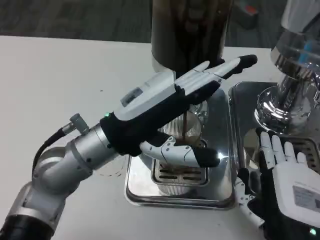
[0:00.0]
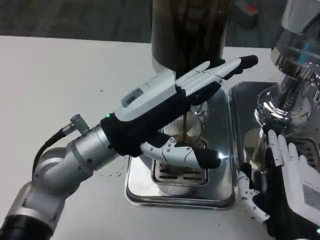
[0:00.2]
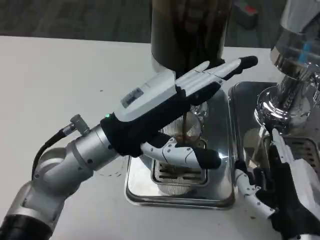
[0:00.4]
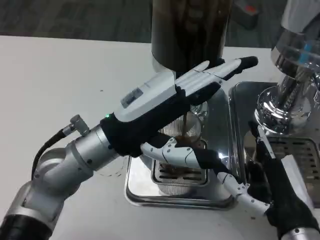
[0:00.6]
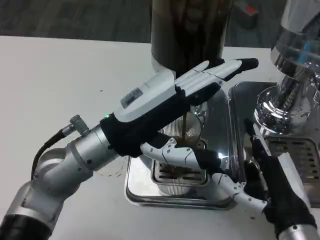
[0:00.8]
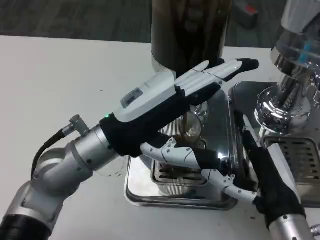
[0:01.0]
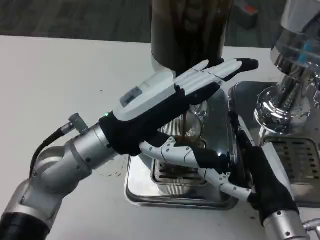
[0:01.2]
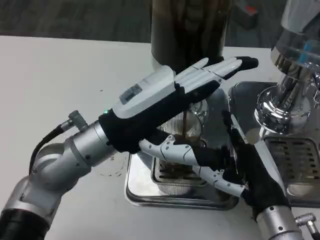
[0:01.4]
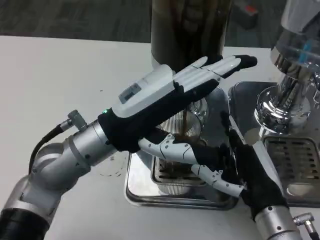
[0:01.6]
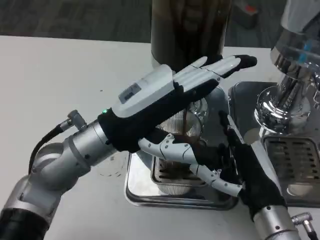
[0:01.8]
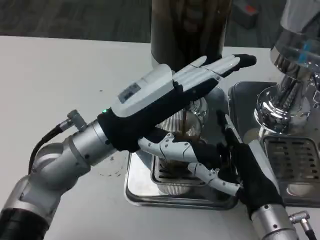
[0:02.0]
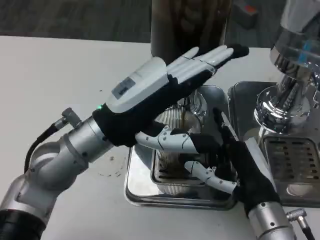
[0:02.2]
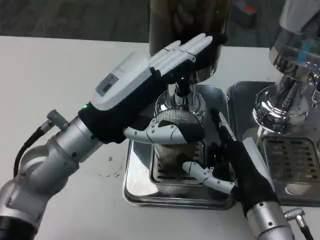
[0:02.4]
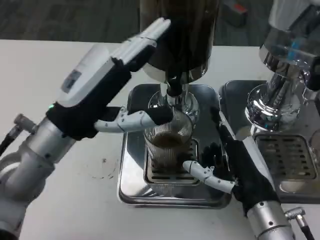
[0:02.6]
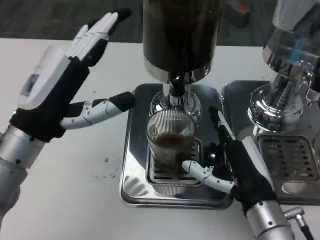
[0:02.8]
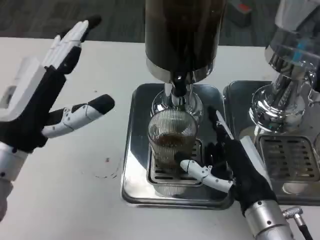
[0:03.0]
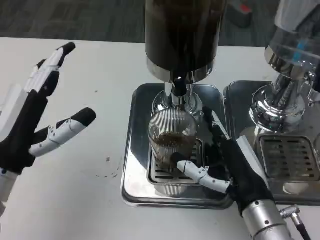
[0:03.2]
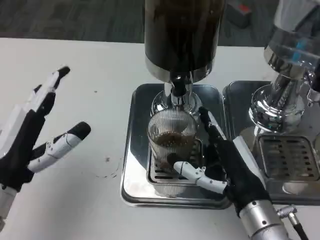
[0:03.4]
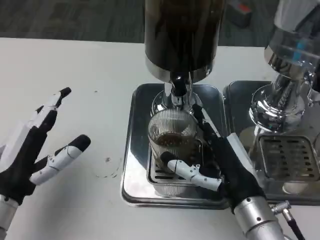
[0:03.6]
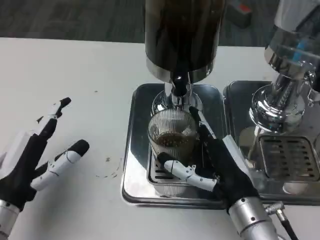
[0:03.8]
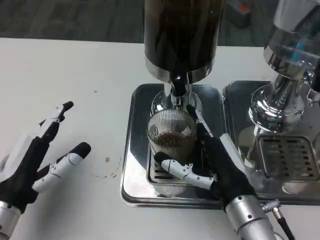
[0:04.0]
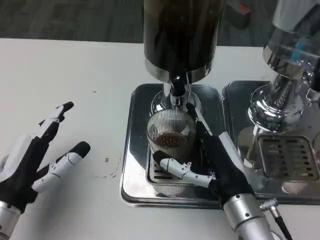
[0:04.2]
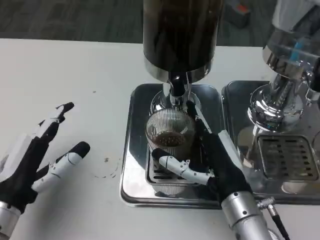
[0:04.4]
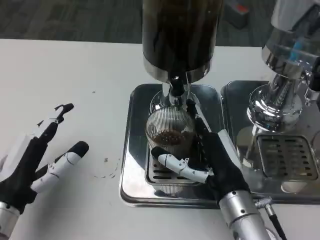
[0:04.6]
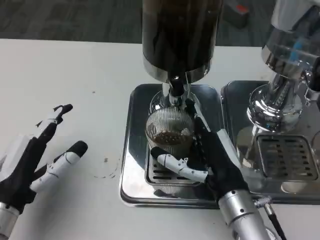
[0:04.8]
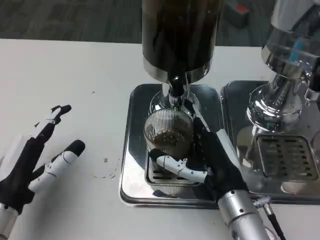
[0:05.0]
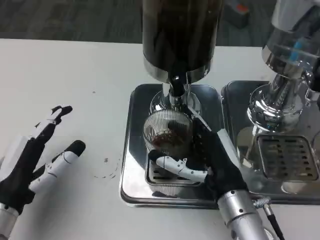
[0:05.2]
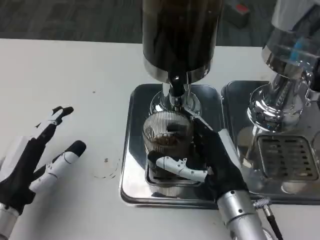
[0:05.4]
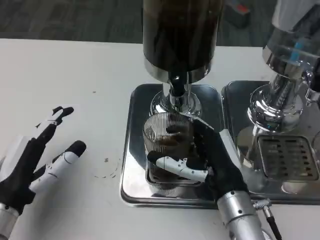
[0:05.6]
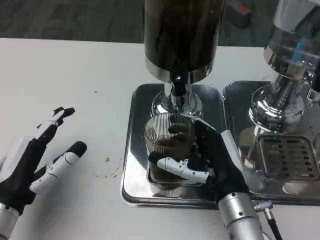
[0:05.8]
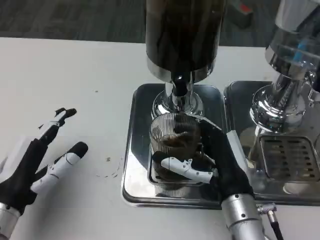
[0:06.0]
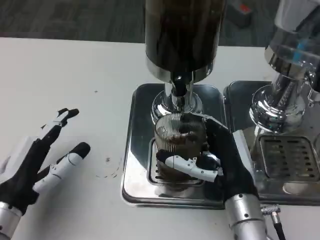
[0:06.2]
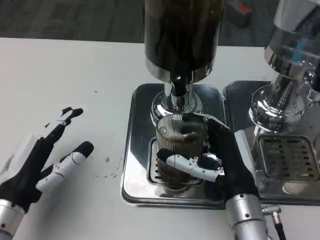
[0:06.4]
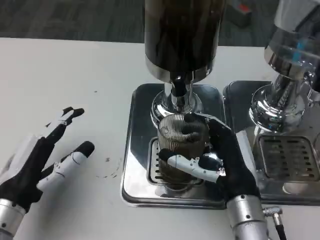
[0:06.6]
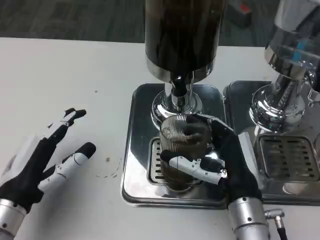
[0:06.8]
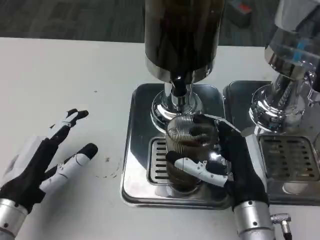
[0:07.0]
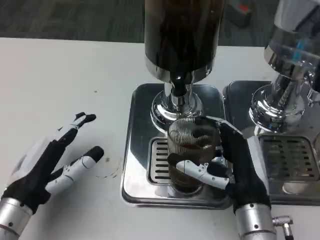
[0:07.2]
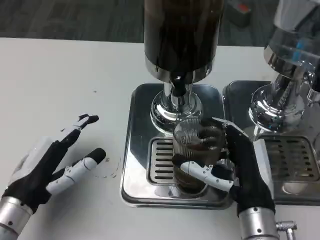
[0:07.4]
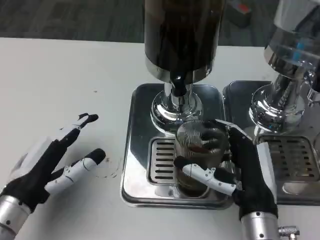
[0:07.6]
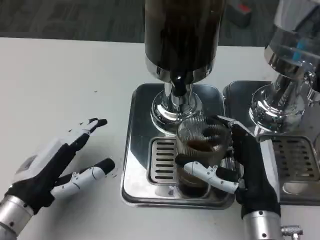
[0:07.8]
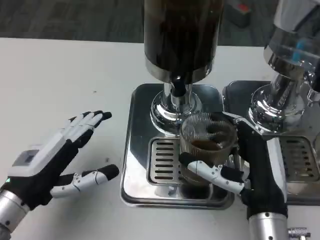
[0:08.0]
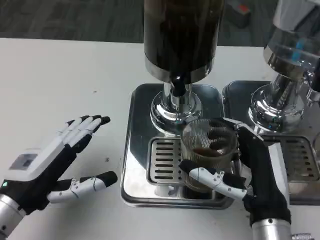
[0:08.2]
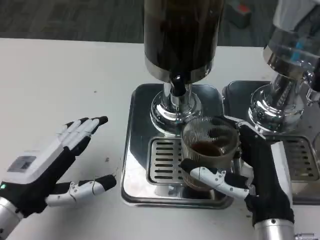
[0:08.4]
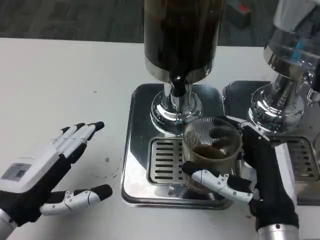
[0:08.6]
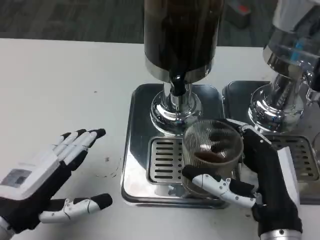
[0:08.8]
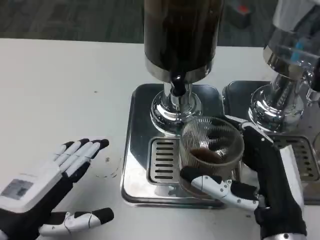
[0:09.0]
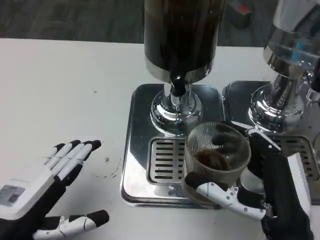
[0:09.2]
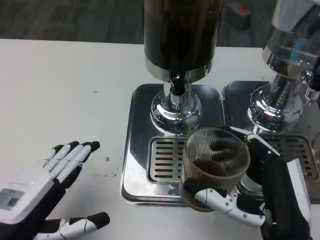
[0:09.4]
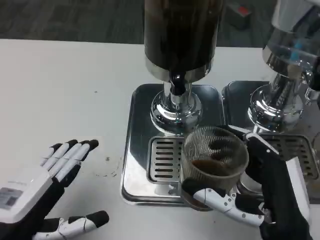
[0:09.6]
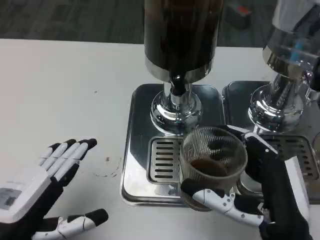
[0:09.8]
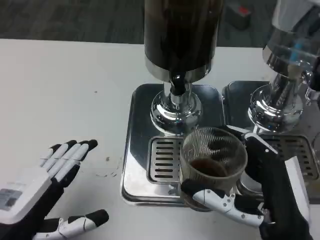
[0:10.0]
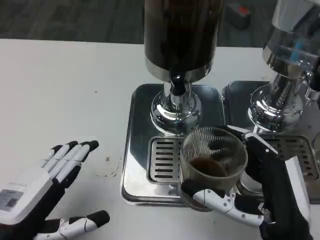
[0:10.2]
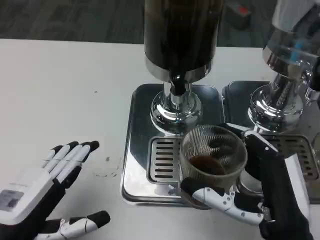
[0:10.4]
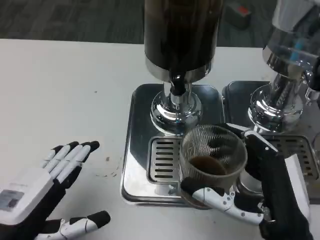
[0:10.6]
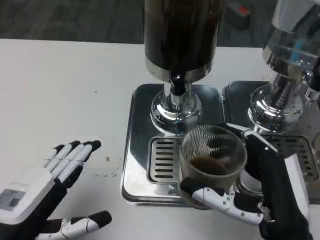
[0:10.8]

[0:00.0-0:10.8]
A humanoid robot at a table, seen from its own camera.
Task of the whole recording: Grasp the cup under the faucet to collect the drink, then remove the cup.
0:00.0 to 0:01.6: The right hand is displaced forward by approximately 5 cm.
0:01.6 to 0:03.0: The left hand is displaced to the left by approximately 10 cm.
0:03.0 to 0:04.6: The left hand moves downward, roughly 5 cm.
0:04.6 to 0:06.2: There are only small adjustments of the hands.
0:07.8 to 0:09.2: Both hands move backward, about 5 cm.
0:09.2 to 0:10.8: The two hands keep their place.

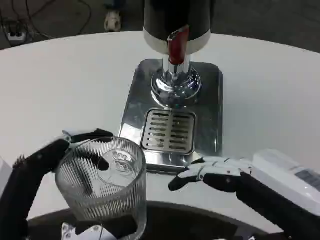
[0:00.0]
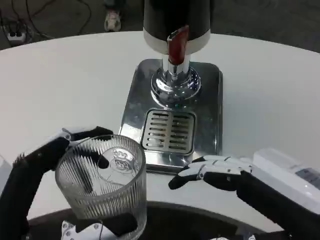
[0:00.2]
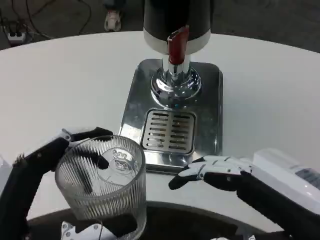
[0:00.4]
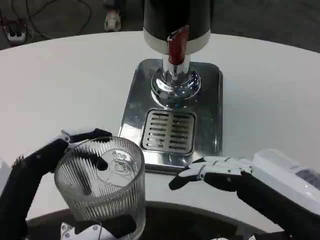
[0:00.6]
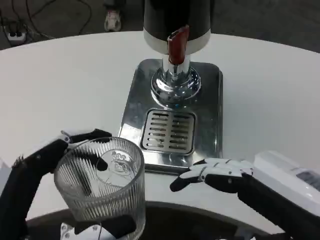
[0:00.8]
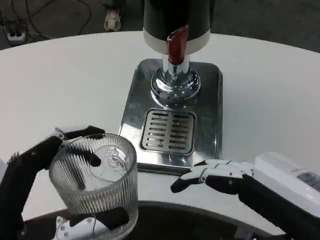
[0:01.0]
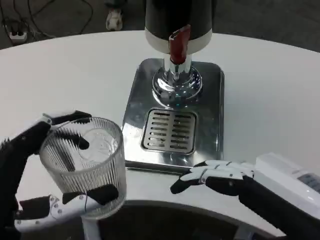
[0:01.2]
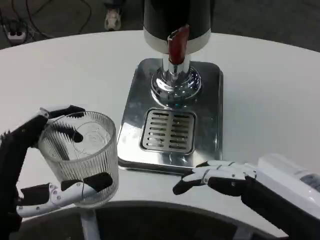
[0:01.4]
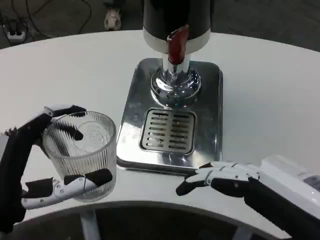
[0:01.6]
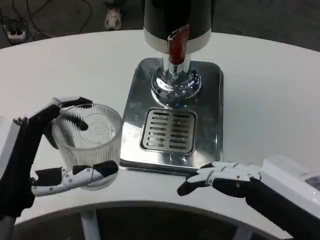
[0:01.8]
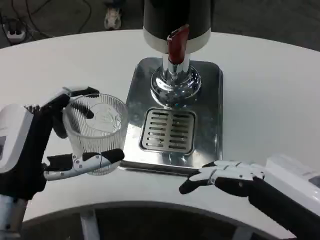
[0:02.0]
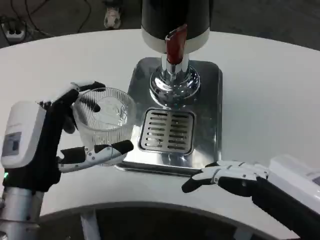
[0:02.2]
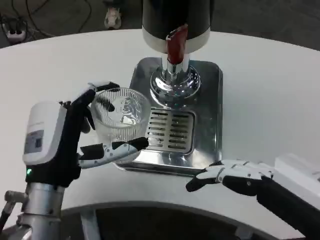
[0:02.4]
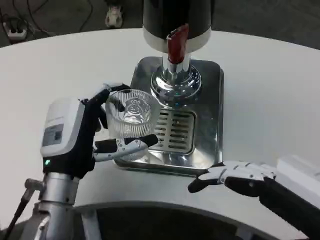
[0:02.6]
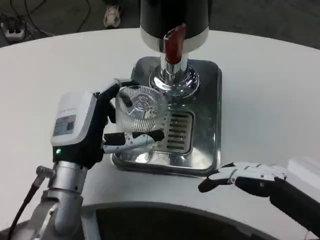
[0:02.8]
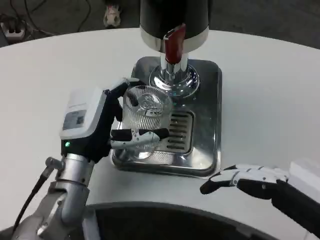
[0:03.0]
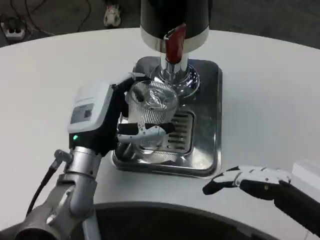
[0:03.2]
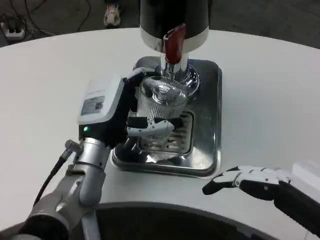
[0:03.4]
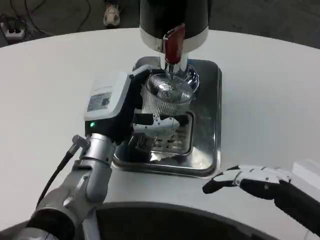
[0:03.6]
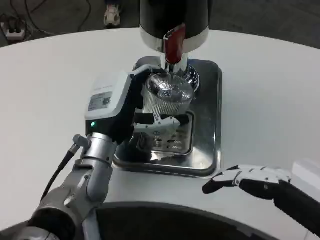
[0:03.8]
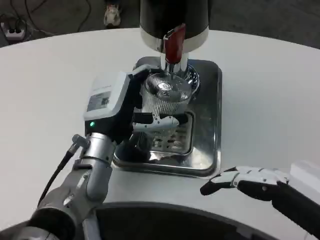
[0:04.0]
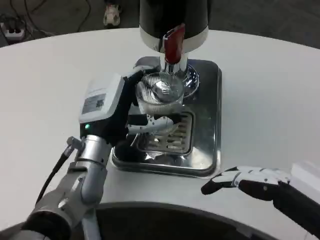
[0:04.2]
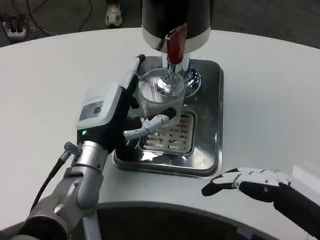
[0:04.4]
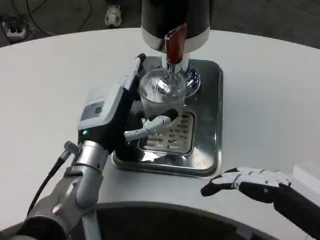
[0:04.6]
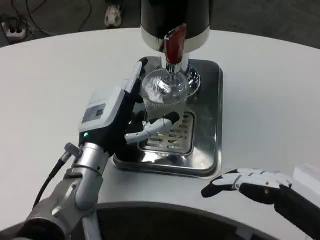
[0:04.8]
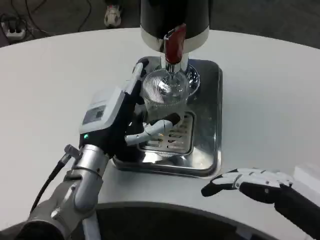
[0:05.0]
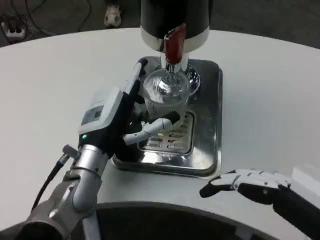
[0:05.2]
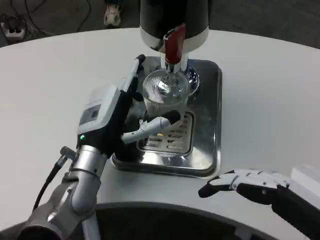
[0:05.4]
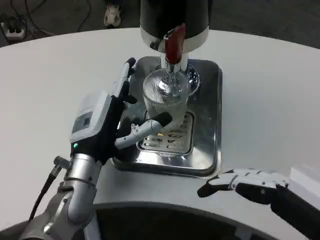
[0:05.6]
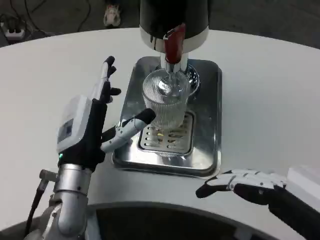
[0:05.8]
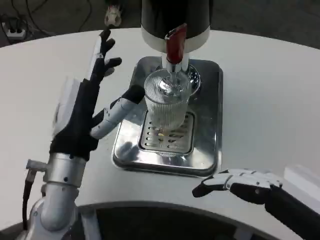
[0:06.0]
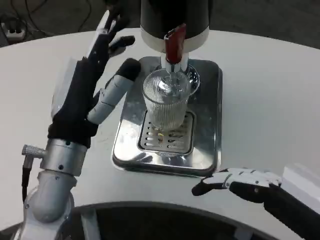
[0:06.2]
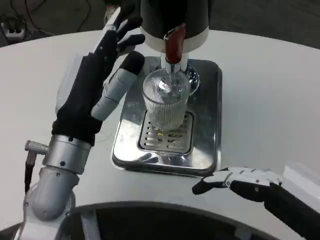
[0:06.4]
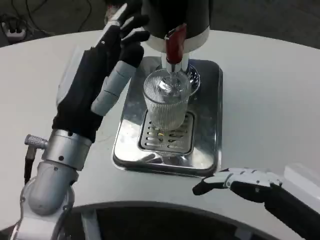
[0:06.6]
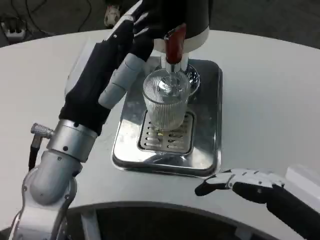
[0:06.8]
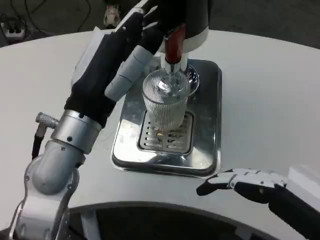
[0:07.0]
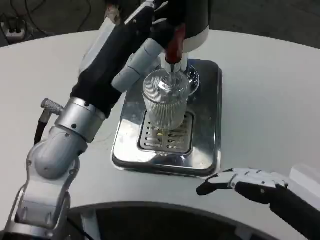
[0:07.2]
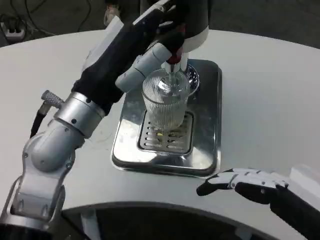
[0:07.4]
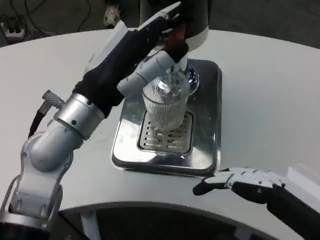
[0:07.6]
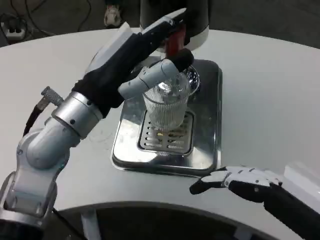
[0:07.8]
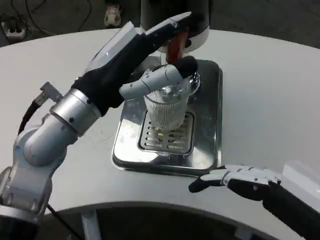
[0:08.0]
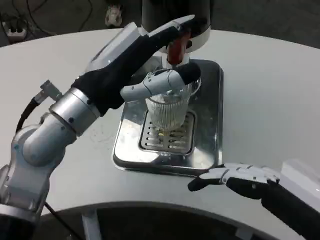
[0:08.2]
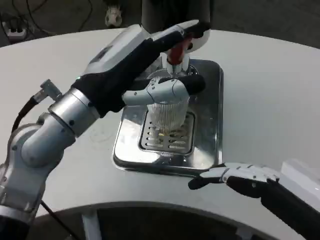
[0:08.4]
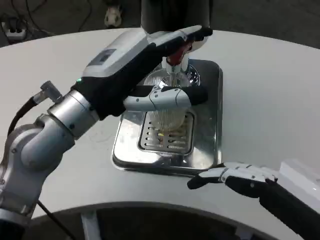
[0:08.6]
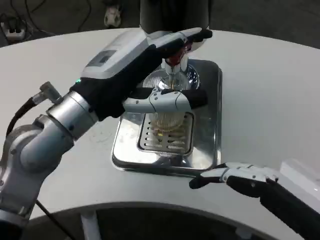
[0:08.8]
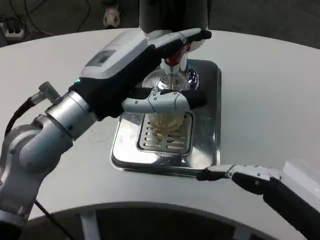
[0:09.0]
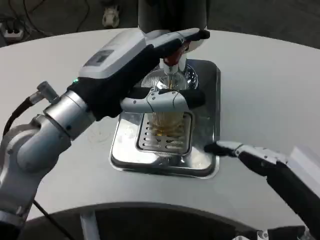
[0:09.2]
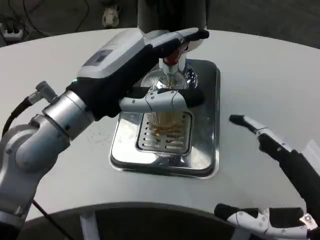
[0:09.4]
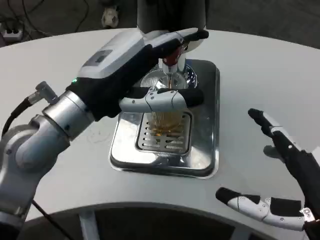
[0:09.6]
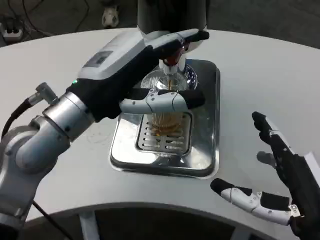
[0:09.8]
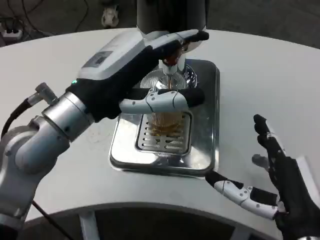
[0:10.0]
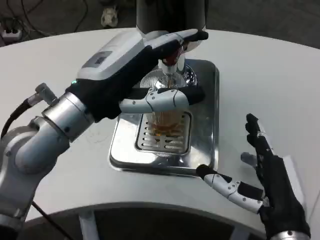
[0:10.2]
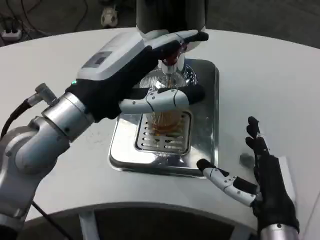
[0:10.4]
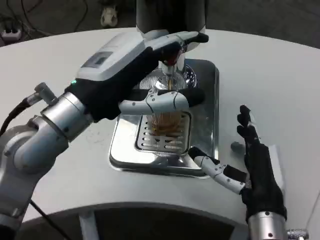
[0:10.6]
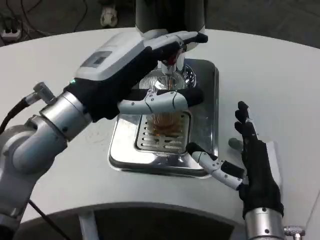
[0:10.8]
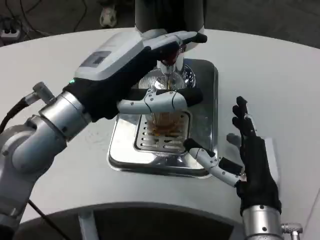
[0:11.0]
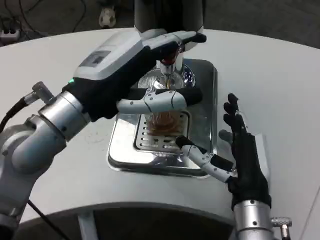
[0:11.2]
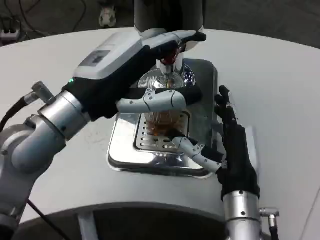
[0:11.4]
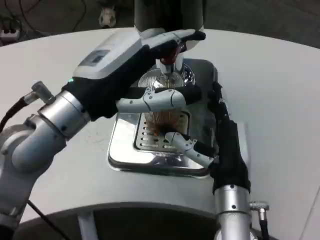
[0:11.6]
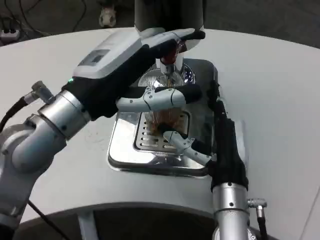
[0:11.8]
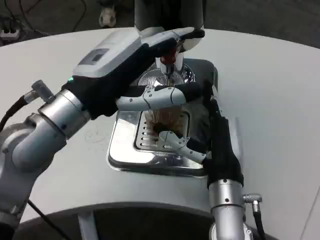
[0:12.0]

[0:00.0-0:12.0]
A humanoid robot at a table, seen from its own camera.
Task of the whole recording: Grasp the cup under the faucet to collect the drink, then remove the cup.
0:00.0 to 0:01.6: The left hand travels forward by about 5 cm.
0:01.6 to 0:03.0: The left hand shifts some 15 cm forward and to the right.
0:03.0 to 0:04.4: The hands stay close to where they were, moving slightly.
0:04.4 to 0:06.0: The left hand shifts about 5 cm backward.
0:06.0 to 0:07.6: The left hand shifts some 10 cm upward.
0:09.0 to 0:10.4: The right hand goes roughly 15 cm downward, forward and to the left.
0:10.4 to 0:12.0: The right hand moves forward and to the left, roughly 10 cm.
